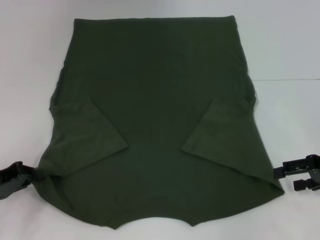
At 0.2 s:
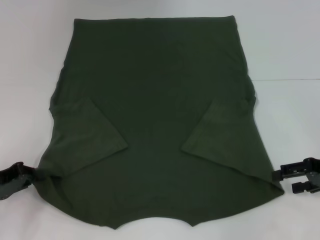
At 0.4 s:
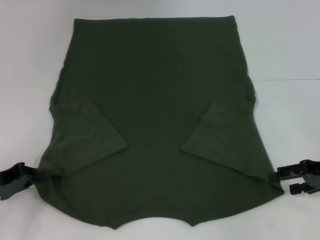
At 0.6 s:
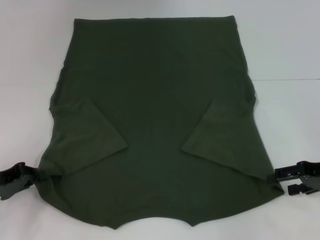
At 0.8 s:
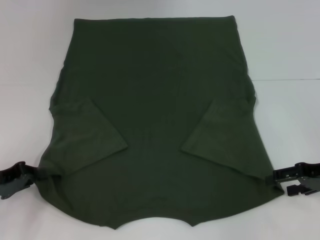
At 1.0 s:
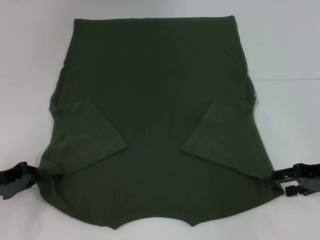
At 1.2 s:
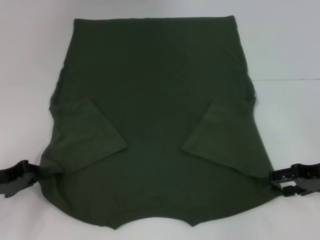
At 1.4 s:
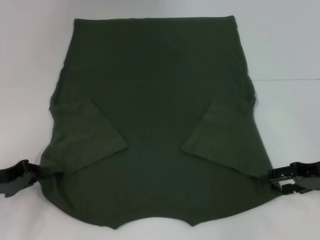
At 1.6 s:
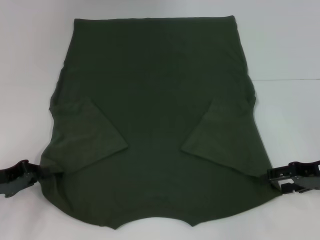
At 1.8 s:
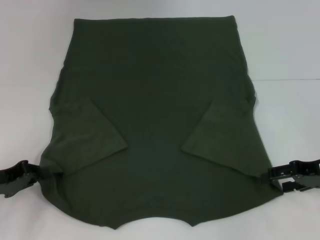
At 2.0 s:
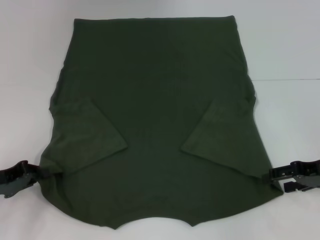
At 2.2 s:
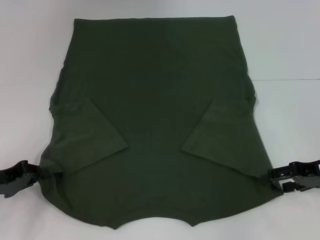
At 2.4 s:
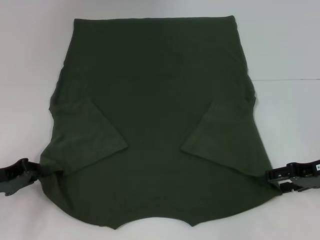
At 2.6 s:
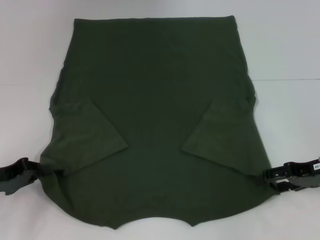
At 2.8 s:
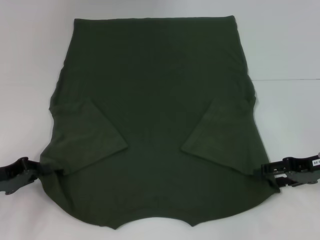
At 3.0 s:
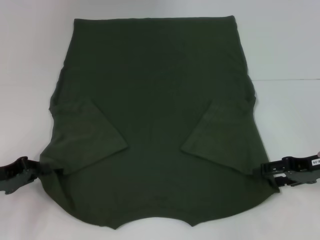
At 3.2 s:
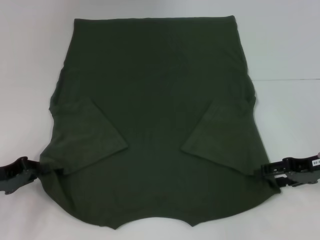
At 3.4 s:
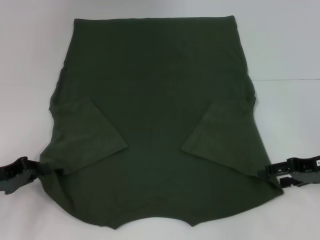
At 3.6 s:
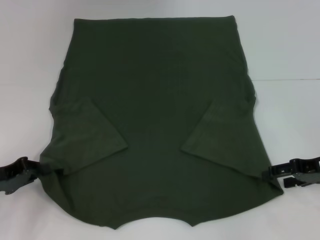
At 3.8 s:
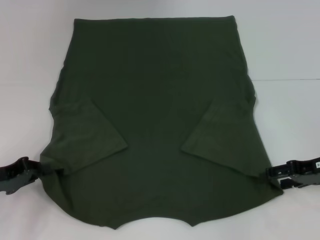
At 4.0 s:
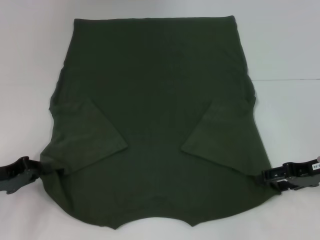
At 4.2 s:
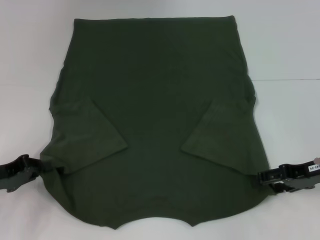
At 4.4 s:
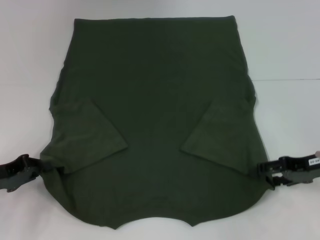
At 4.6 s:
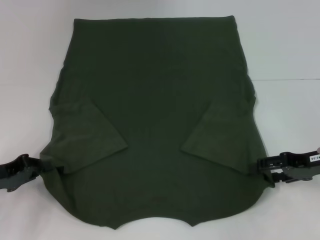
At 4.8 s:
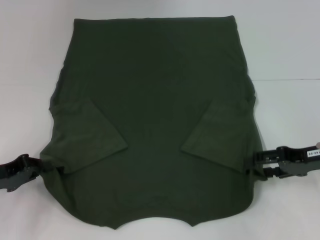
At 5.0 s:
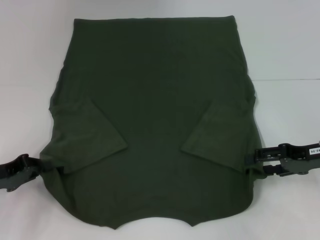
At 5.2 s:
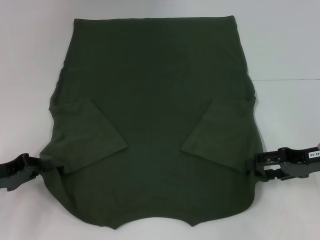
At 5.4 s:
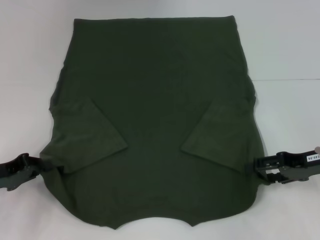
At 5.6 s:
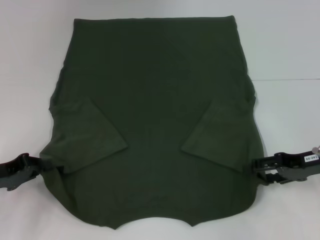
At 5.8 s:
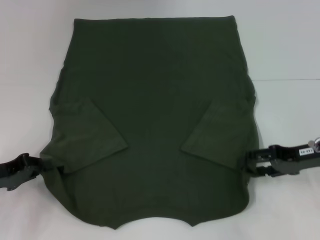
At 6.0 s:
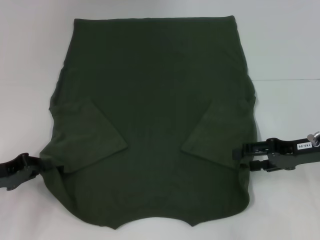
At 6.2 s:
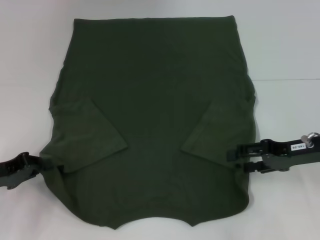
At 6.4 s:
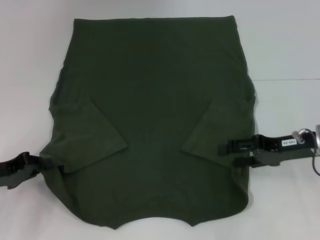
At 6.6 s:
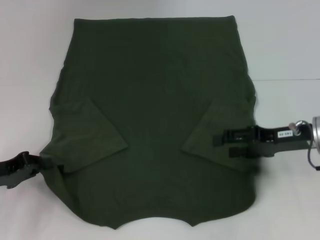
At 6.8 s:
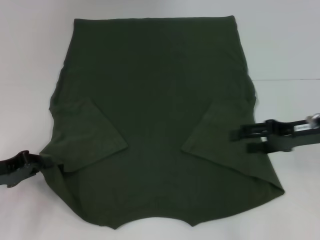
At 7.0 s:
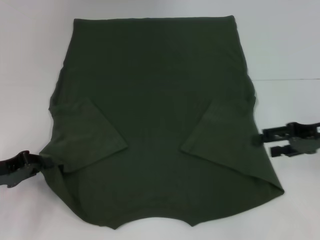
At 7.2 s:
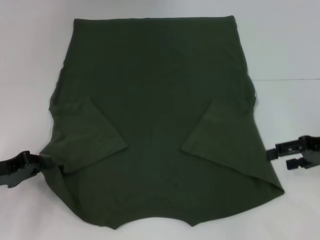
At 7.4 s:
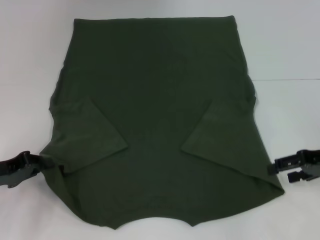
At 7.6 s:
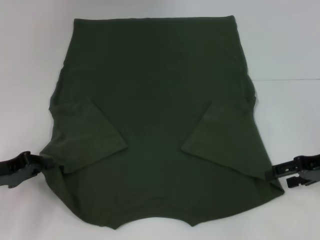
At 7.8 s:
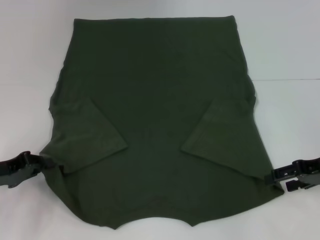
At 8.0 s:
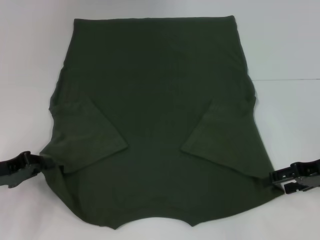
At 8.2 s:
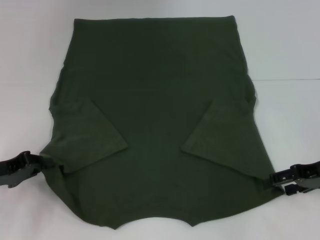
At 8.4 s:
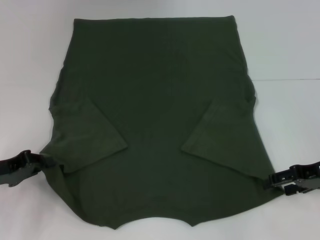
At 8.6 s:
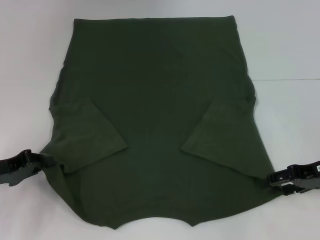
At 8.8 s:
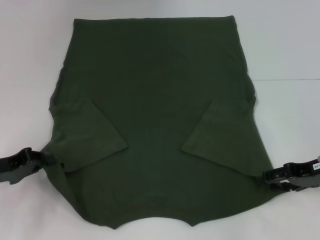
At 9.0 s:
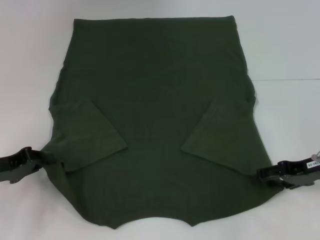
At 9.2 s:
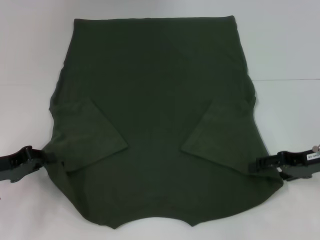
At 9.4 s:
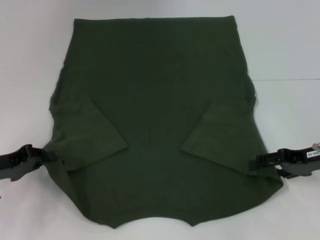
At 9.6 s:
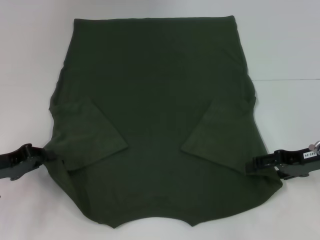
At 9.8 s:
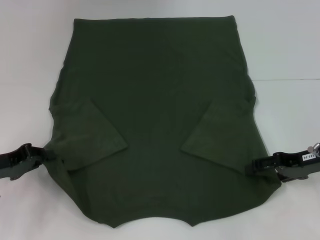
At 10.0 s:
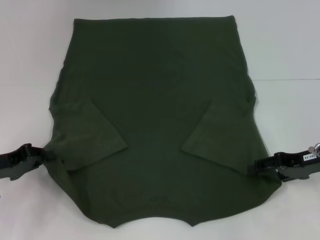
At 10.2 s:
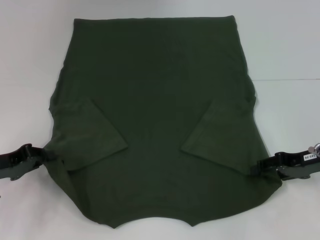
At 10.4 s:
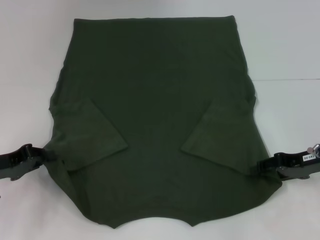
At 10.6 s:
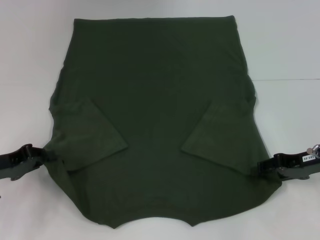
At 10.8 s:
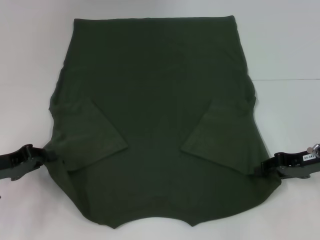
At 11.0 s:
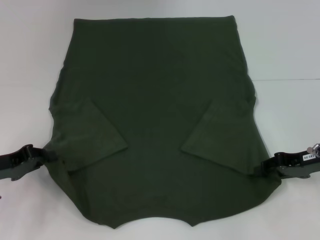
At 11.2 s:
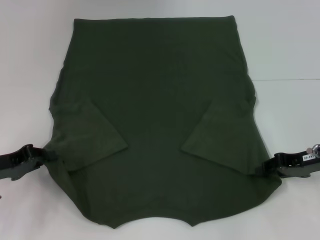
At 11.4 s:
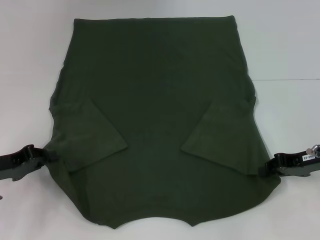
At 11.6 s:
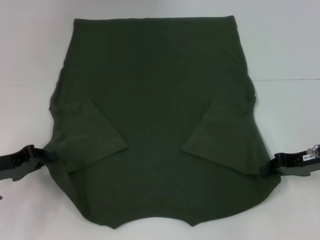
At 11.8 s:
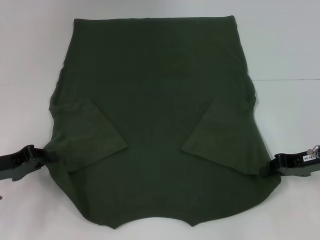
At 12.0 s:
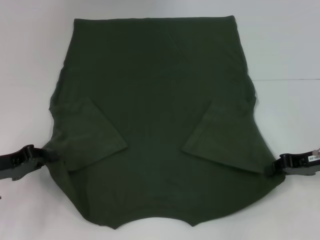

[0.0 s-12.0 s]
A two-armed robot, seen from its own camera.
Step, 0.0 to 10.2 s: Grab the bottom right corner with your right hand.
0.0 to 1.6 s: The grippers stay close to where they were, moving slightly.
1.6 to 3.0 s: Both grippers stay about where they are.
3.0 to 4.4 s: Both grippers stay about where they are.
4.4 to 10.4 s: The grippers stay close to where they were, moving slightly.
10.4 to 12.0 s: The right gripper closes.

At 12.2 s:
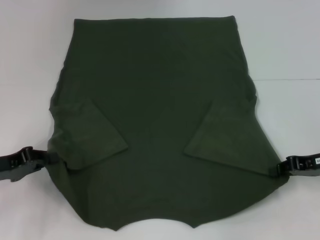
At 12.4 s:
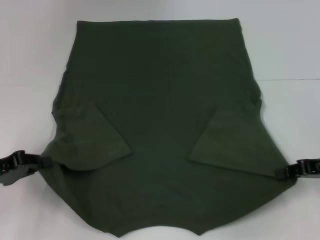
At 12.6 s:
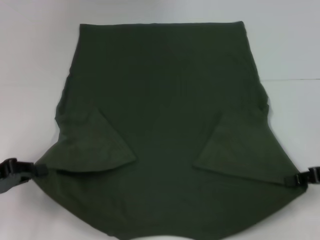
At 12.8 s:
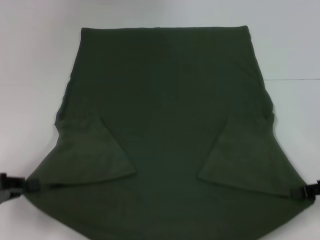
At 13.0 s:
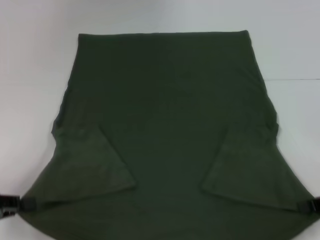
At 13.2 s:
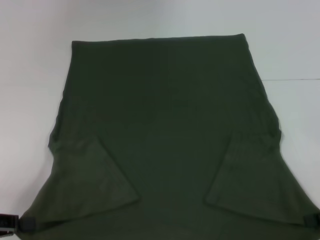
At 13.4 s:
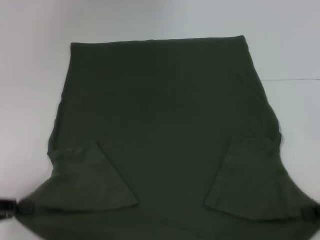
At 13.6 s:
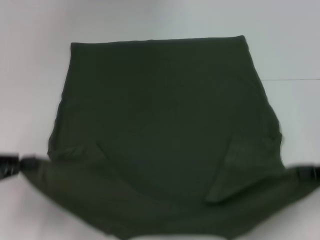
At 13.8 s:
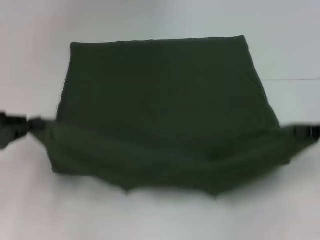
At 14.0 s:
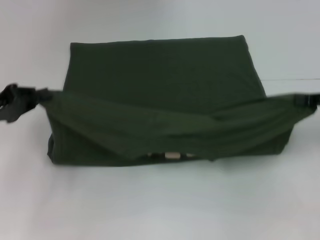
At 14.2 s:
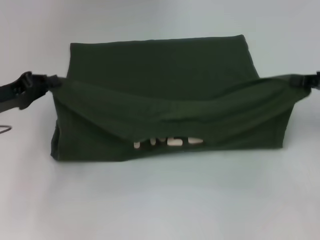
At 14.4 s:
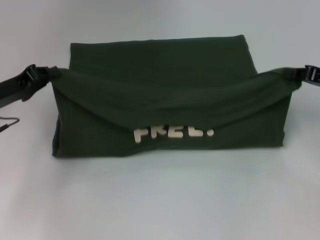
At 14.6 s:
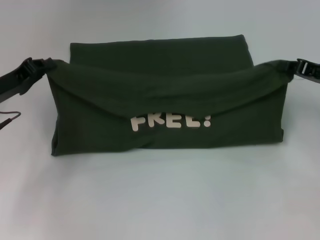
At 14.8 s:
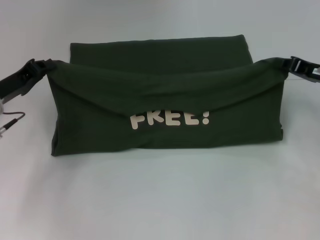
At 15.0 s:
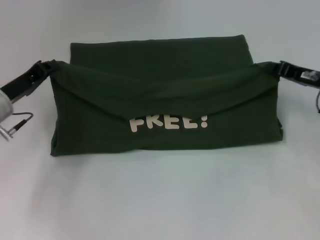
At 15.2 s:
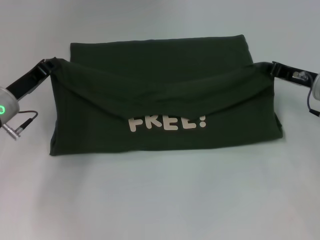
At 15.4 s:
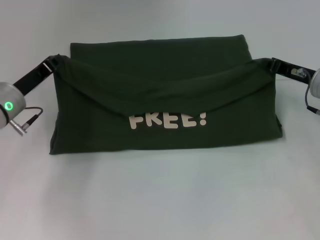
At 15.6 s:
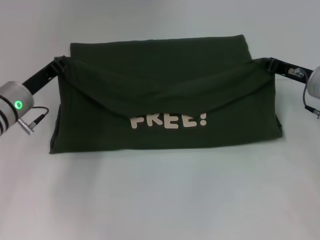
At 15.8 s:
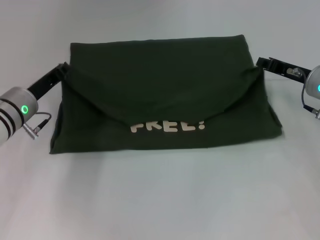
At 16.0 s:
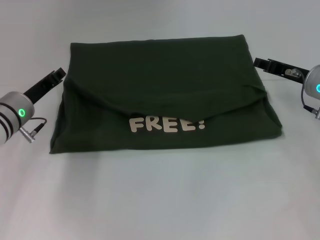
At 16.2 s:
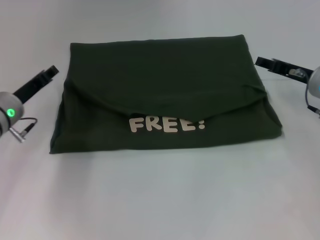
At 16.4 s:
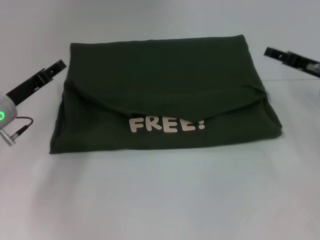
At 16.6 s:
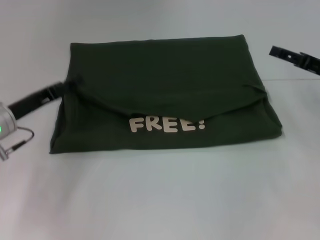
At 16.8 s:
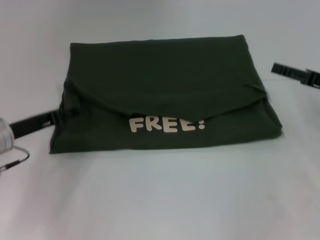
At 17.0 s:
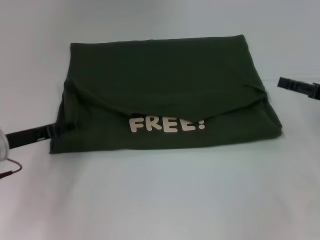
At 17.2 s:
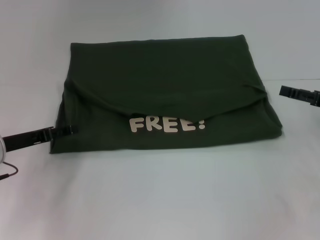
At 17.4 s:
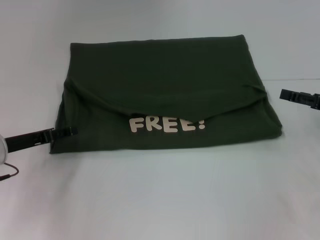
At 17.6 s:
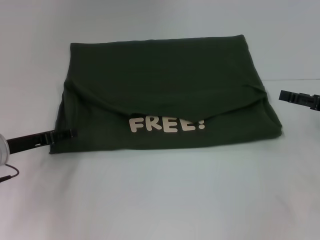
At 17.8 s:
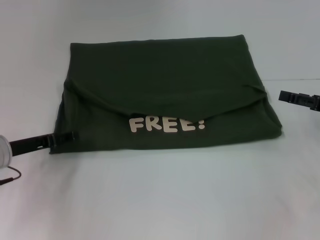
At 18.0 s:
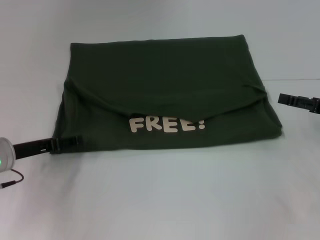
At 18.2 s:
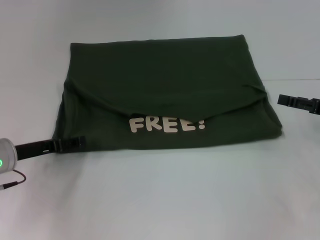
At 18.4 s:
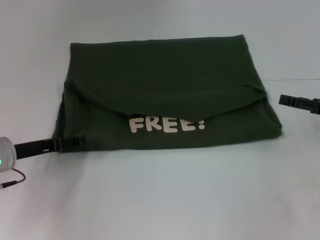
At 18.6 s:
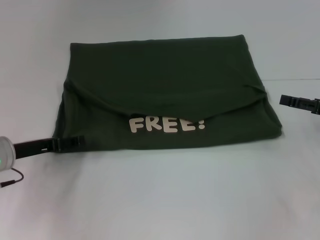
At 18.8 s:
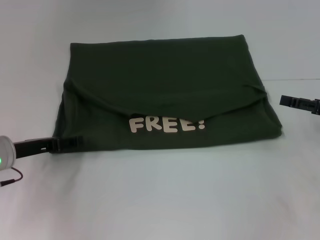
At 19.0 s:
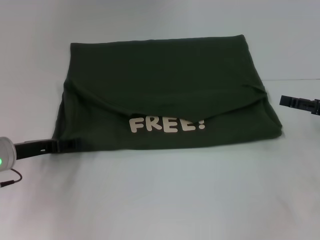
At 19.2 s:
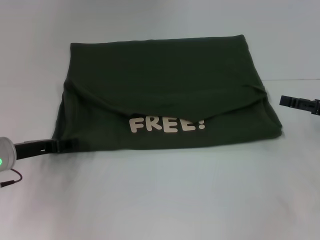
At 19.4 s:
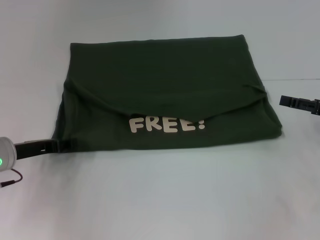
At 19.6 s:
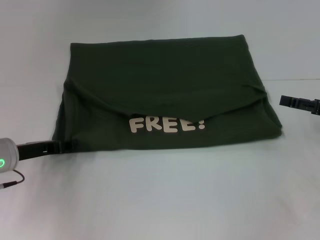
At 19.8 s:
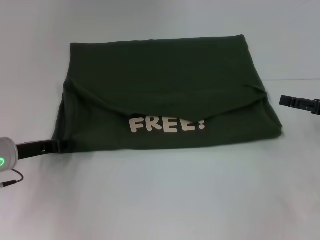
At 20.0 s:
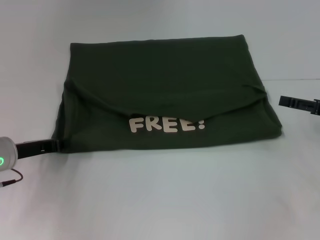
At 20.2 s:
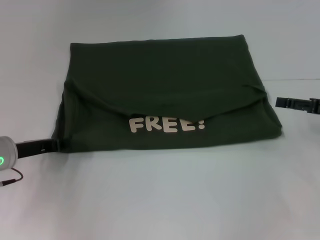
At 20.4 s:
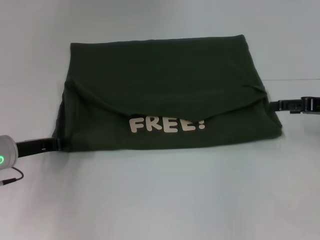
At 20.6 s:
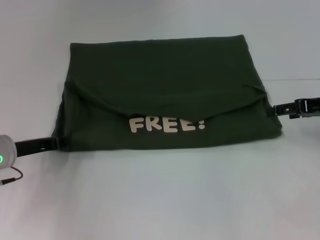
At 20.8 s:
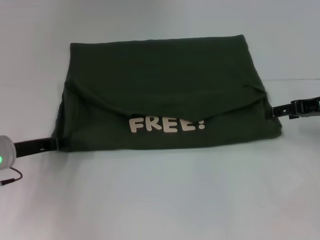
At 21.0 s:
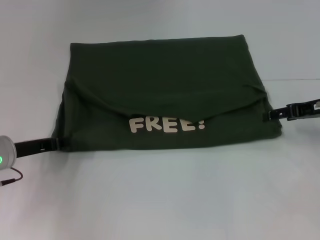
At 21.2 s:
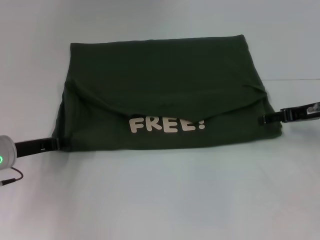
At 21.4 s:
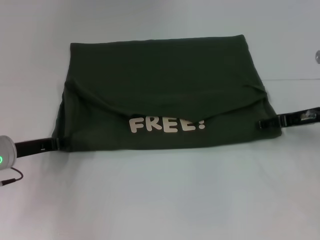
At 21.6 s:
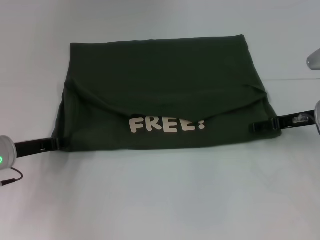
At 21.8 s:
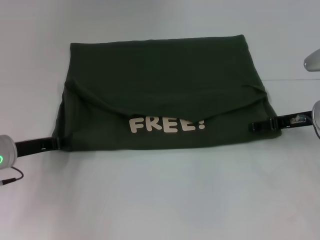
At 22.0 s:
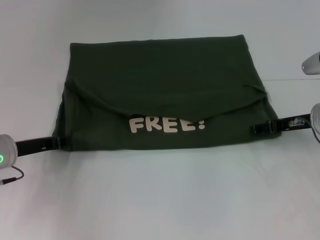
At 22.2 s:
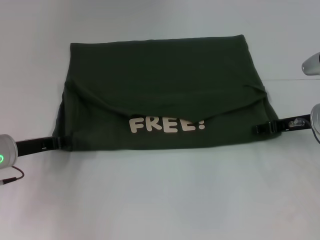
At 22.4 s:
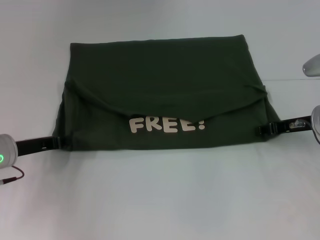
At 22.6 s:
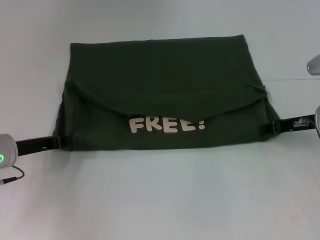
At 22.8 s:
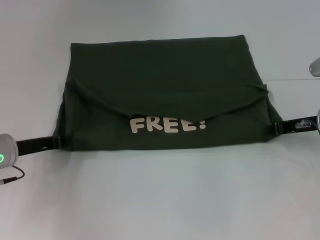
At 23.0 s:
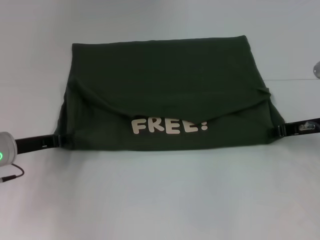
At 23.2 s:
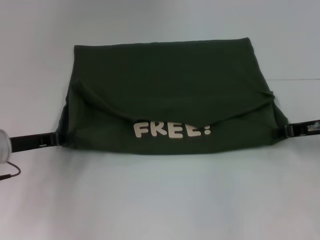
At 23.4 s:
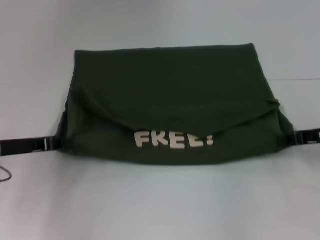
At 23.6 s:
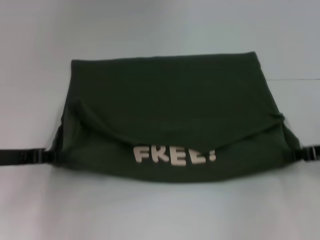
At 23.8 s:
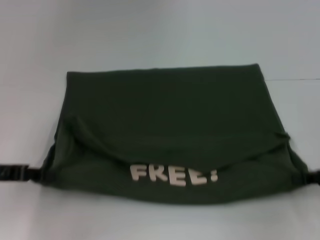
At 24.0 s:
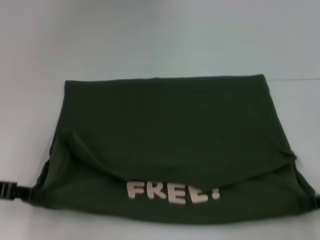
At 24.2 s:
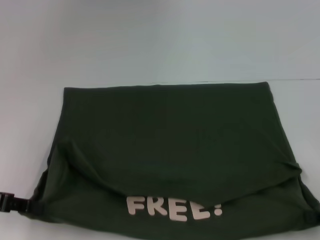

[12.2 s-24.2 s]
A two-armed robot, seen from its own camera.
Step, 12.2 to 16.4 s: Fold the clothes with your left hand.
Step, 12.2 to 16.4 s: Fold the clothes with your right hand.
Step, 16.6 to 24.0 s: Pull the clothes with your left hand.
Step, 16.6 to 24.0 s: Pull the clothes with your right hand.
12.2 to 13.8 s: The right gripper shifts approximately 5 cm upward. Meanwhile the left gripper moves about 10 cm backward and comes back.
13.8 to 15.2 s: The left gripper heads forward and to the right, covering approximately 10 cm. Meanwhile the right gripper is displaced to the left and forward by some 10 cm.
15.2 to 16.6 s: The right gripper opens. The left gripper opens.
16.6 to 18.2 s: The right gripper ends up roughly 5 cm from where it was.
19.8 to 21.2 s: The right gripper is displaced forward and to the left by some 10 cm.
21.2 to 22.6 s: The right gripper closes.
22.6 to 24.2 s: The right gripper goes approximately 20 cm backward and to the right, and closes, while the left gripper travels backward, upward and to the left by approximately 10 cm.
